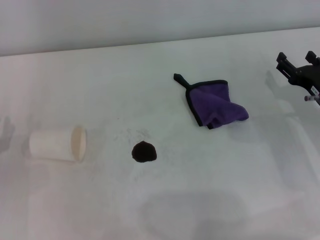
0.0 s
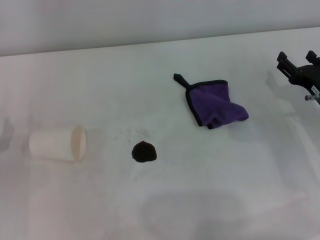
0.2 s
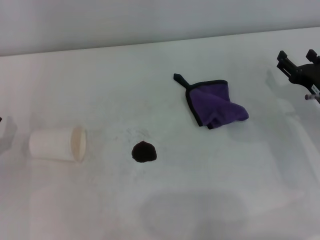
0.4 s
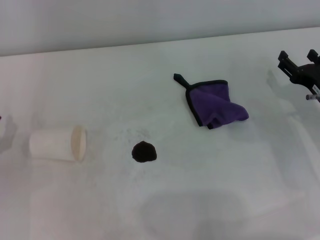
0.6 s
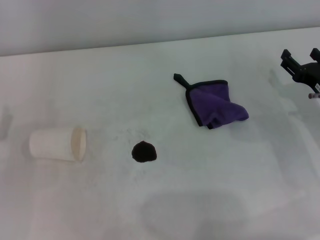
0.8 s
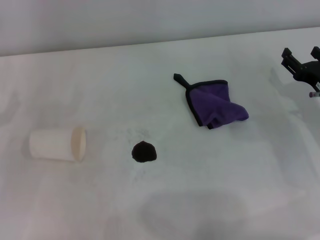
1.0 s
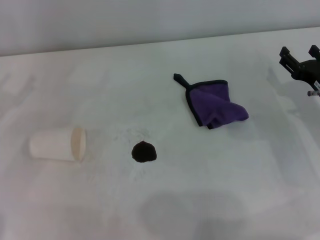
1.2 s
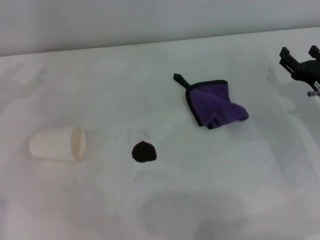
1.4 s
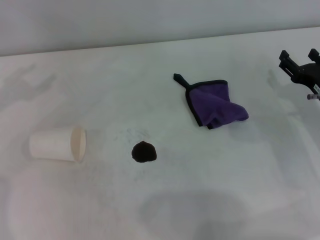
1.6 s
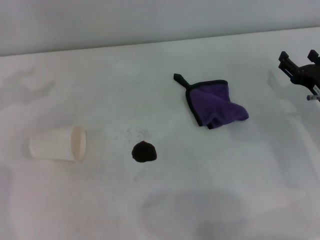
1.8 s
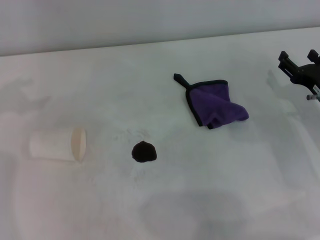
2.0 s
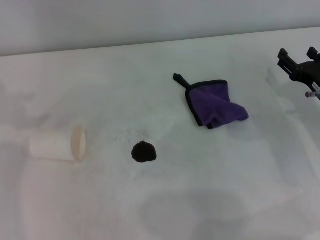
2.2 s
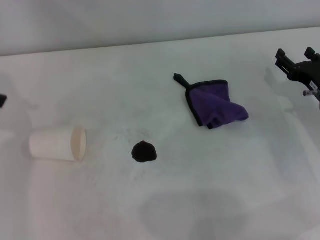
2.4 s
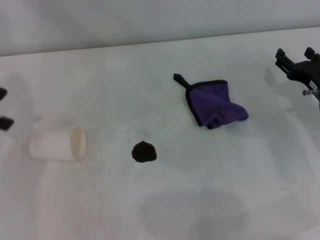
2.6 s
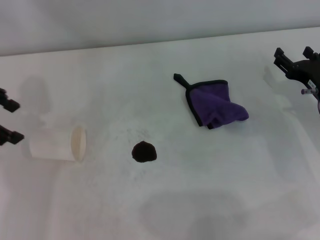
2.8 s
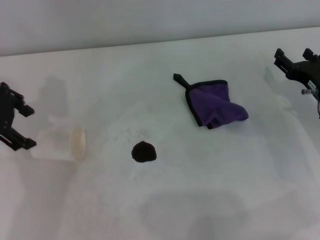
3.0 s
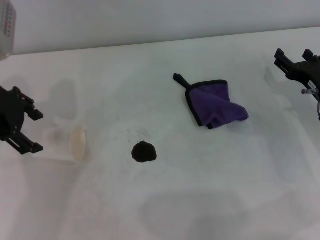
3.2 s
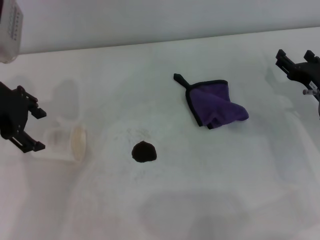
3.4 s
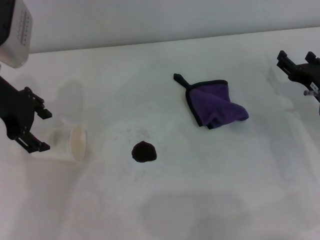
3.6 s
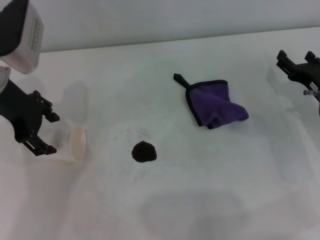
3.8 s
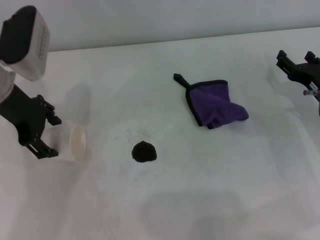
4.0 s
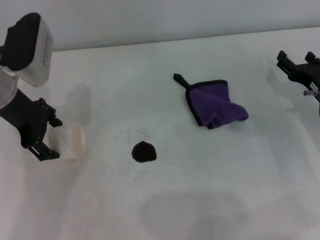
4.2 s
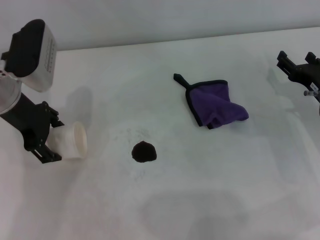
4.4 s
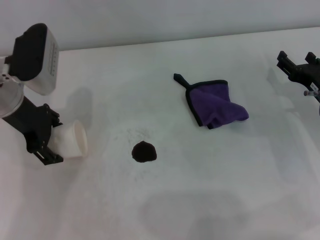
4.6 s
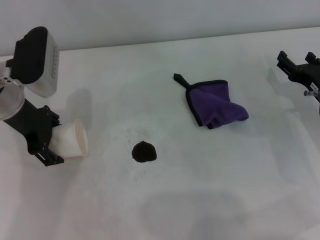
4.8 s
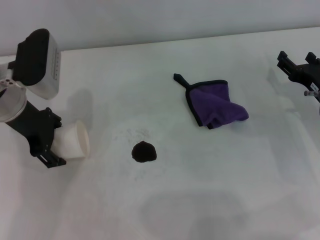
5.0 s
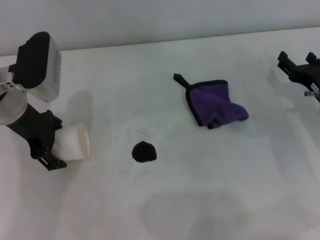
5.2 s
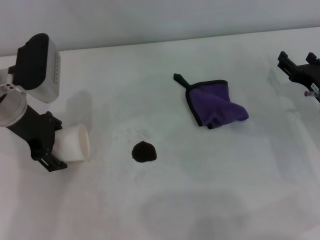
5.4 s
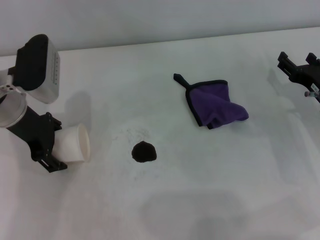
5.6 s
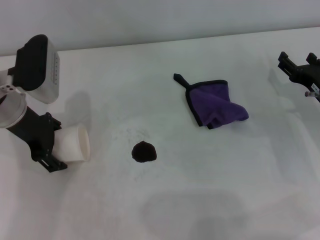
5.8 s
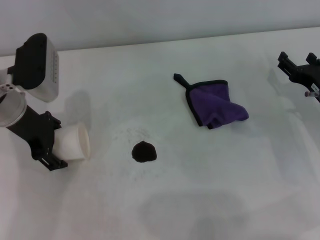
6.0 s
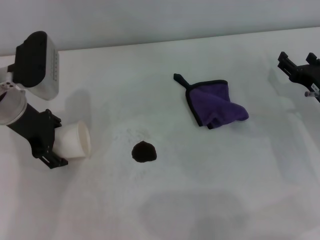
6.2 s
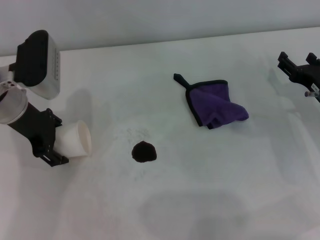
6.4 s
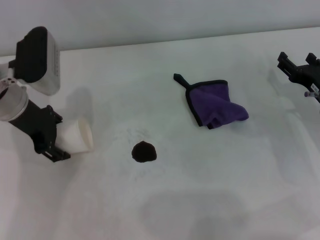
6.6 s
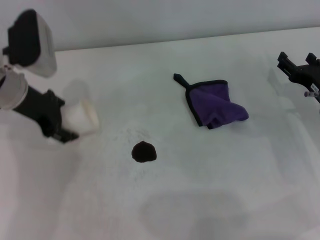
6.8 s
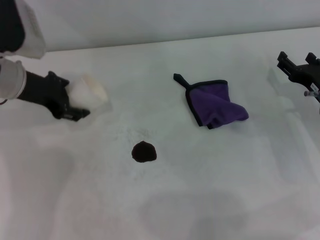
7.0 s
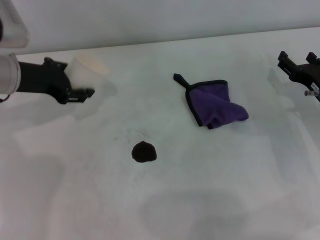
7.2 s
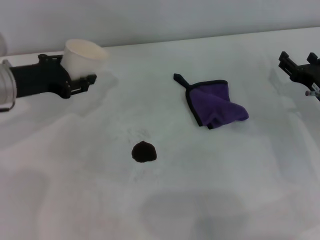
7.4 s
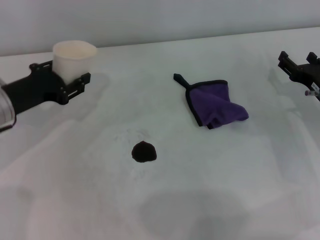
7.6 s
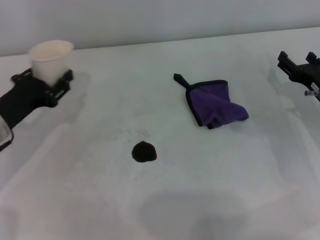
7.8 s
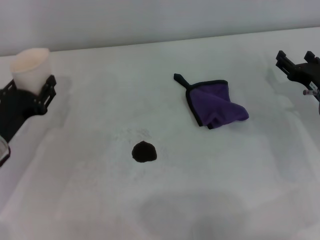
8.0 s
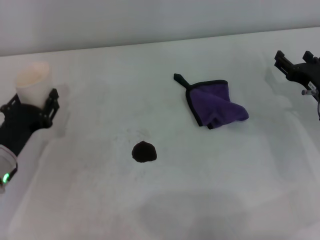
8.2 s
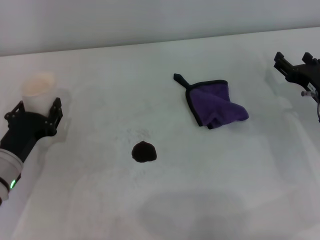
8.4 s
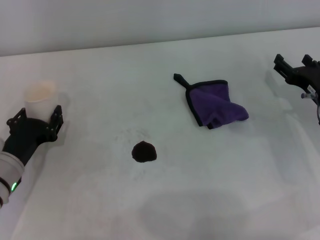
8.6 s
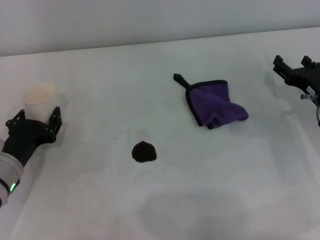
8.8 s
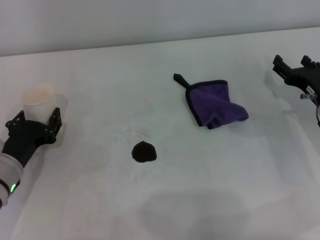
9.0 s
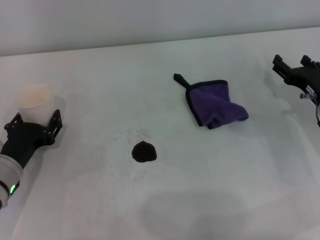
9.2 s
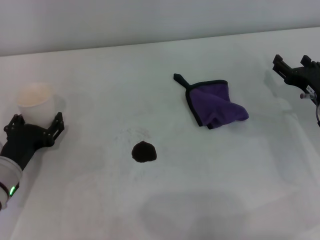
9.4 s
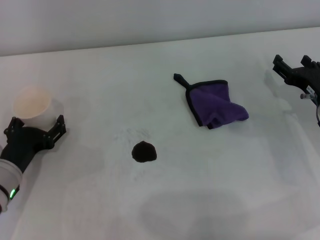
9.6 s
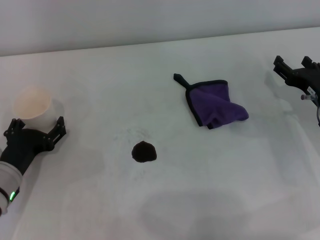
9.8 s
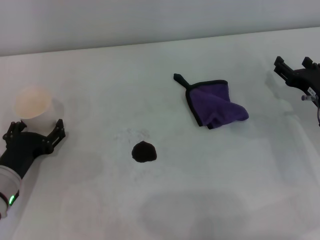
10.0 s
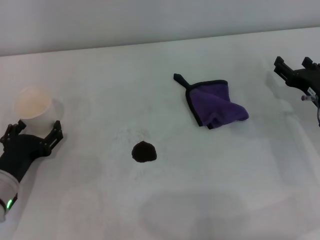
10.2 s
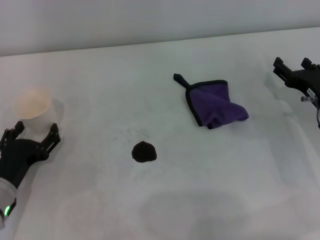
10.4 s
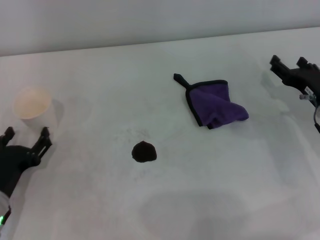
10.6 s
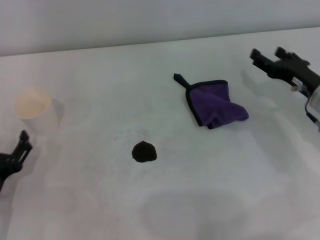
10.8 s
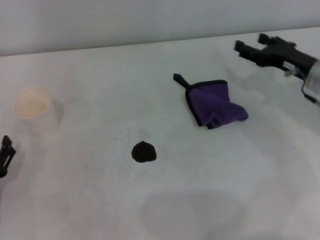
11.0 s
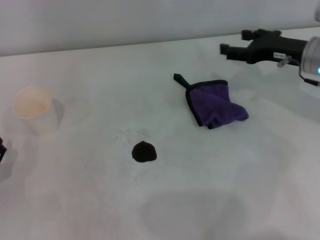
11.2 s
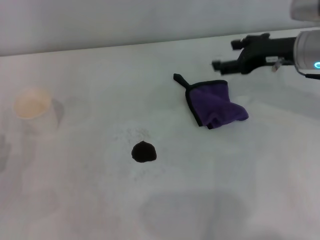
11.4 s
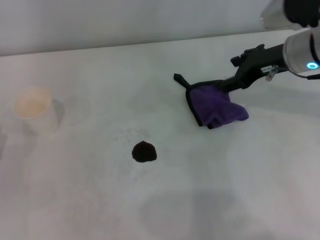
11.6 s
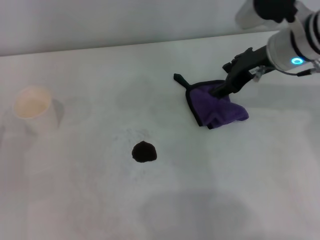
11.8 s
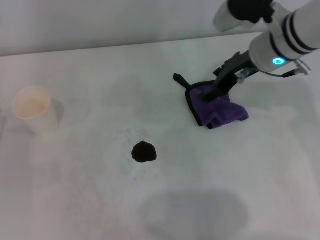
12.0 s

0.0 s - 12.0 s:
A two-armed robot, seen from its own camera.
Step, 0.0 s - 6.2 s: Grasp the paper cup with the left gripper.
Step, 6.6 s - 10.2 s: Stand the paper cup upright with the left gripper.
1.6 s - 3.0 s: The left gripper moves to the right, roughly 10 cm.
3.0 s - 4.4 s: The left gripper goes some 5 cm downward.
4.4 s - 6.0 s: The grippers stay close to where they were, moving slightly.
6.0 s - 7.6 s: The left gripper shifts by about 5 cm, and closes its fingers.
7.6 s - 9.0 s: The left gripper heads downward and backward, covering some 10 cm.
9.0 s - 10.4 s: The left gripper opens up.
10.4 s - 12.0 s: The right gripper shifts roughly 20 cm upward, to the left and forward. Meanwhile the left gripper shifts about 5 cm to the left.

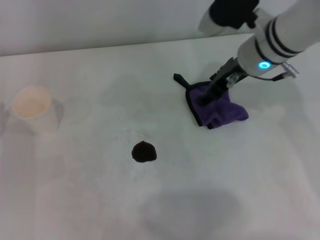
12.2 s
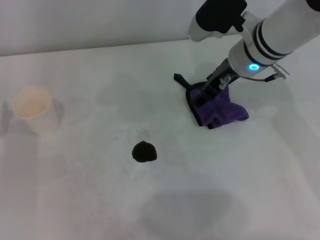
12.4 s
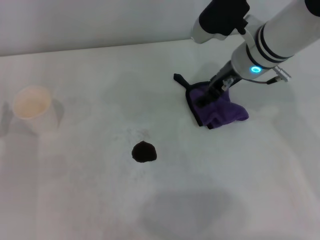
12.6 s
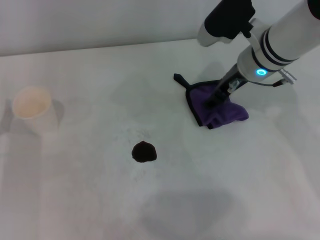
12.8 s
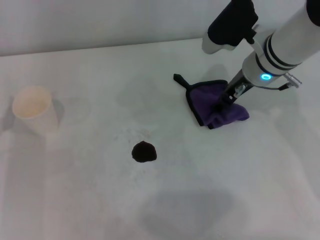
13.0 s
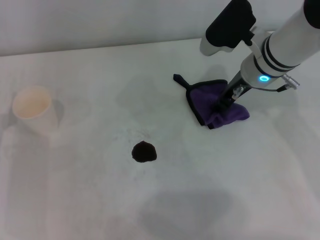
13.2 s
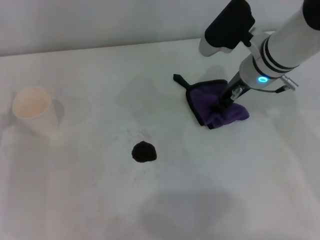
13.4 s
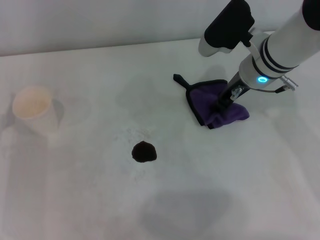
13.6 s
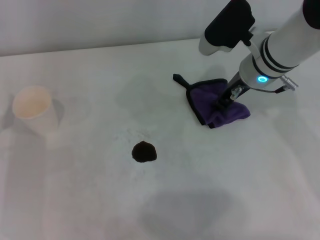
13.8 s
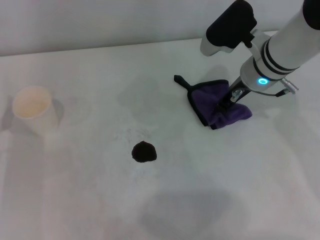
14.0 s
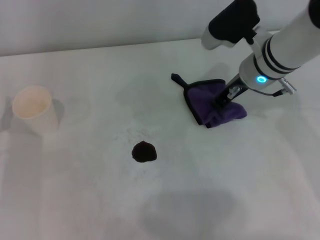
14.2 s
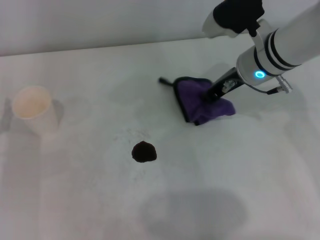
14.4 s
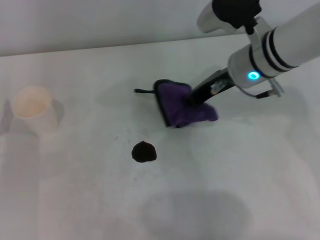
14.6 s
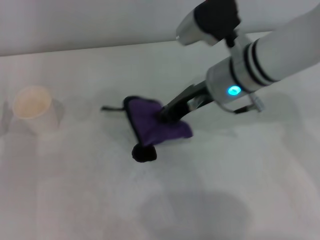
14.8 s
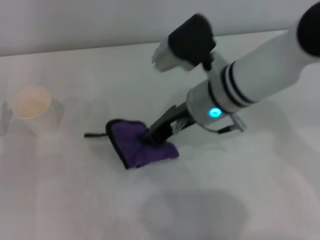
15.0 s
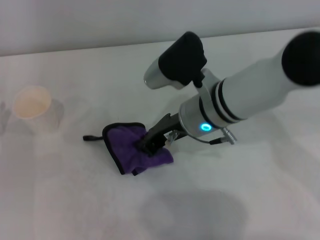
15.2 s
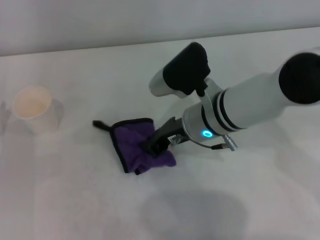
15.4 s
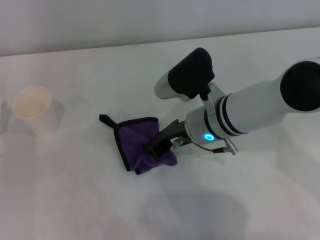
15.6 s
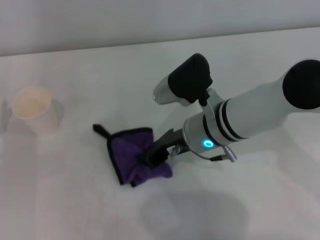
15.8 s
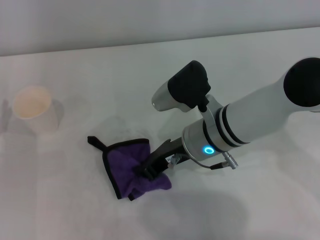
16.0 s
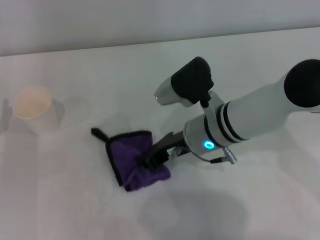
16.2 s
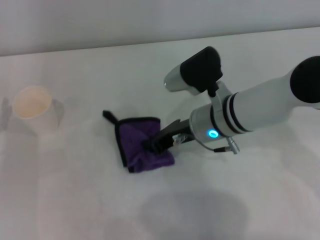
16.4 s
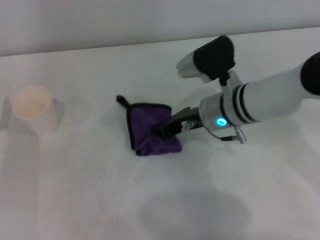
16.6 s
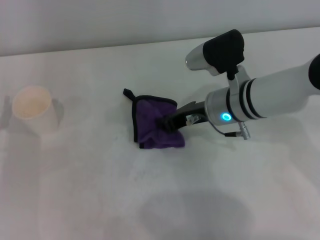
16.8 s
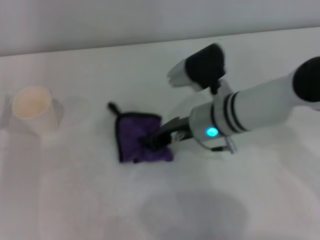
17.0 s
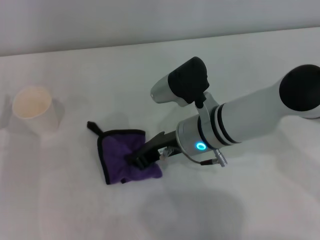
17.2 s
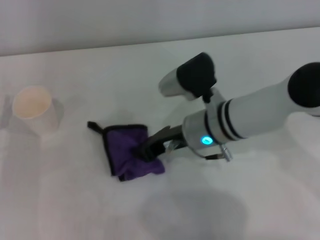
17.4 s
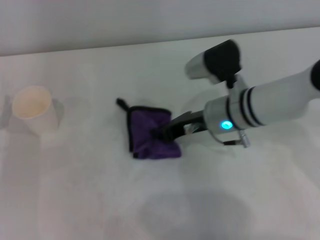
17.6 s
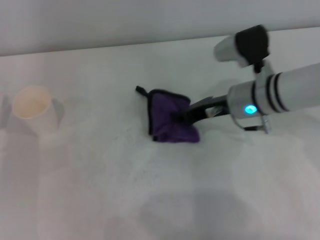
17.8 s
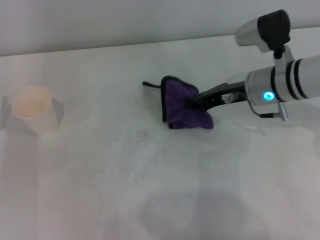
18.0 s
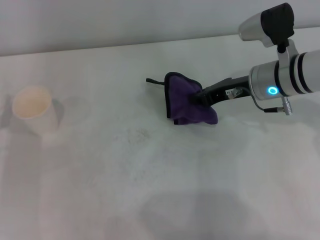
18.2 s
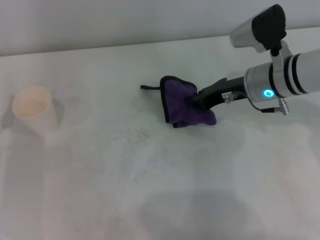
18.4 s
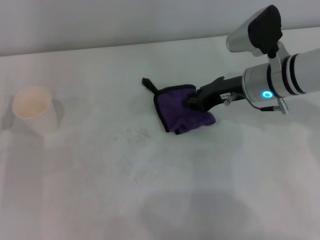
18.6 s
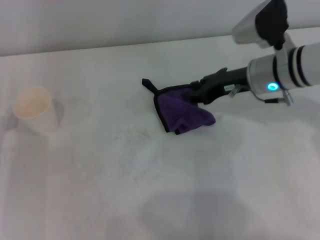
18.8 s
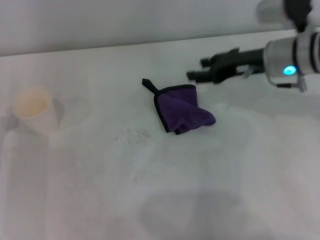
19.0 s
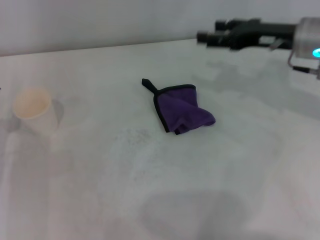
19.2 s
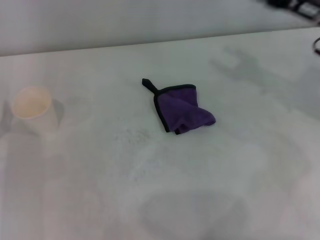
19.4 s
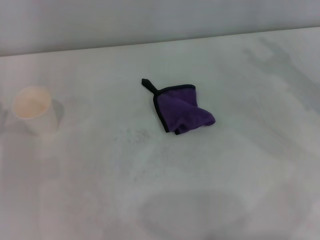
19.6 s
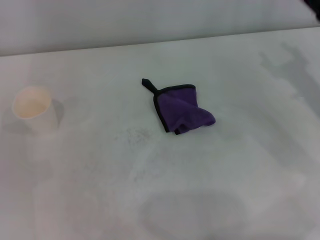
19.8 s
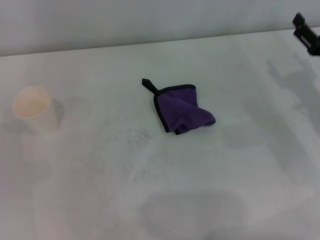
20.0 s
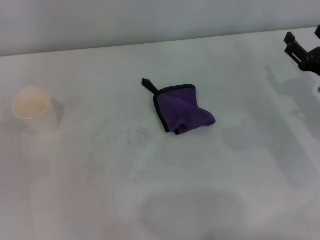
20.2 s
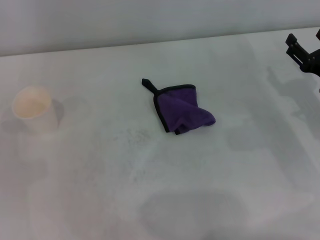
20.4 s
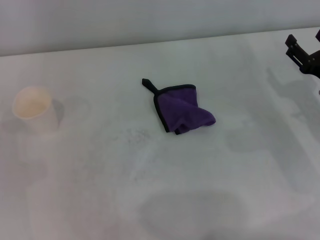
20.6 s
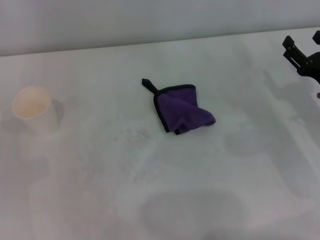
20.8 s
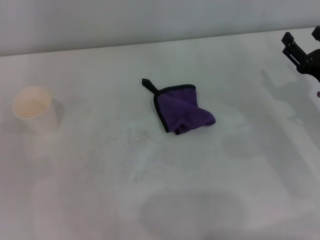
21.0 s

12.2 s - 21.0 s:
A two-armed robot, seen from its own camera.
Step, 14.2 s - 17.6 s: Wipe the stains off the table with the right gripper.
Step, 17.8 s - 18.4 s: Place the rag on the table with the right gripper.
12.2 s - 13.6 s: The right gripper closes.
13.6 s - 15.2 s: The right gripper is displaced to the left and backward by roughly 10 cm, and closes its fingers.
15.2 s - 16.6 s: The right gripper ends up roughly 5 cm from where it was.
16.6 s - 18.0 s: The right gripper travels to the right by some 10 cm.
18.0 s - 19.6 s: The right gripper shifts some 15 cm to the right and upward, and opens.
19.6 s - 21.0 s: The right gripper goes about 10 cm downward.

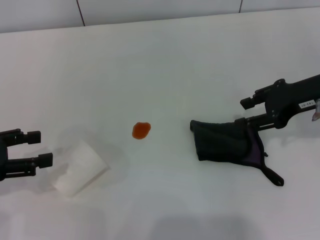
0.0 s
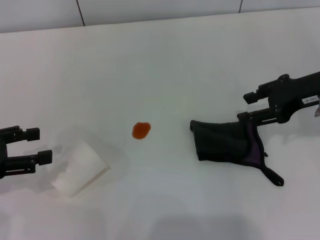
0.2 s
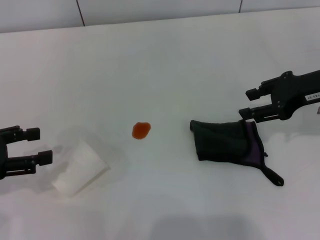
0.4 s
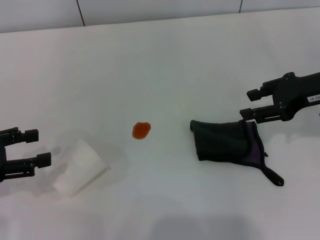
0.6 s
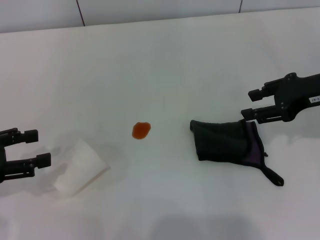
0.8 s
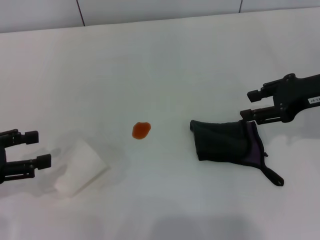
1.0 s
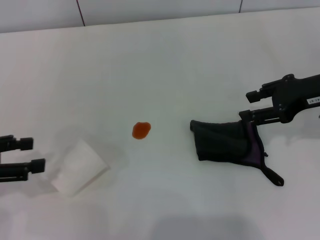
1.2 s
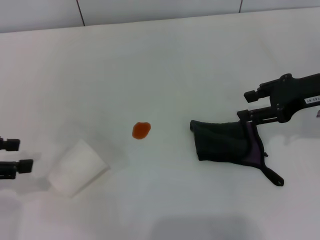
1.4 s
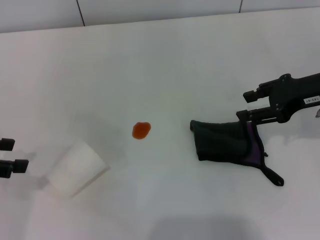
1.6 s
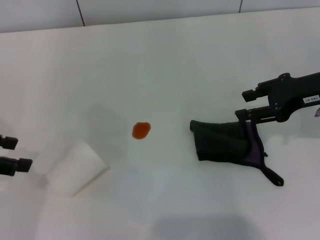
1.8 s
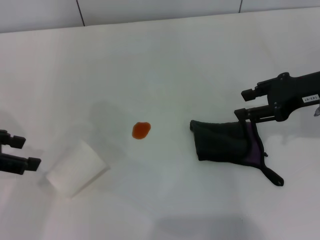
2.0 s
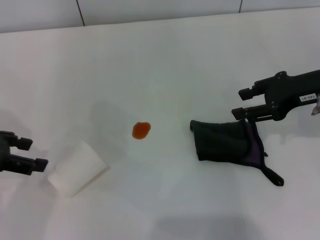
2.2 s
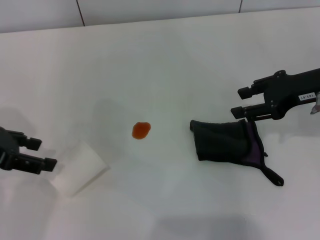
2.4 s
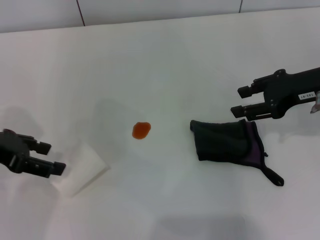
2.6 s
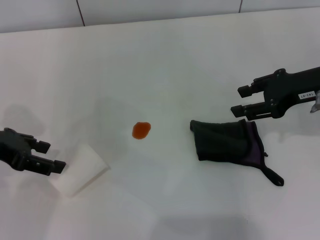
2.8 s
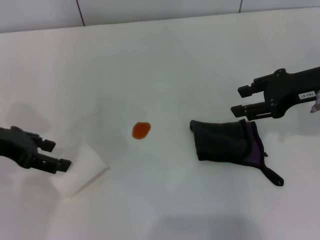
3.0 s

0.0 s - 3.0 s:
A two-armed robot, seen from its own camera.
0.0 s - 1.6 s: The grippers move only a little.
1.6 s - 3.0 s: The left gripper moves to the right, approximately 5 cm.
